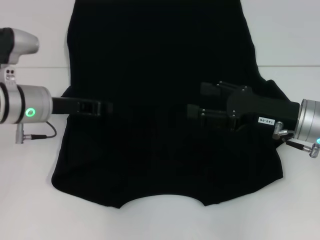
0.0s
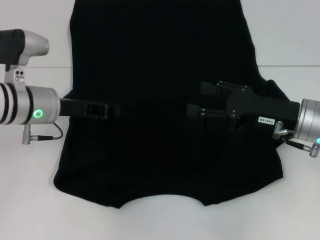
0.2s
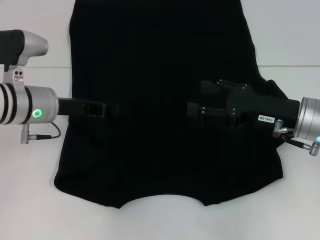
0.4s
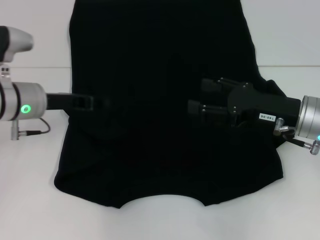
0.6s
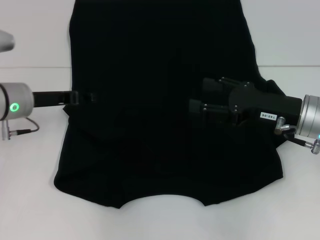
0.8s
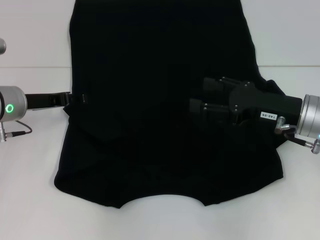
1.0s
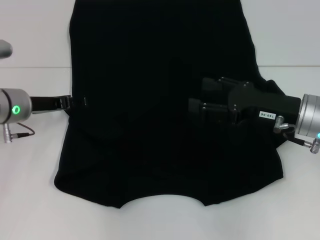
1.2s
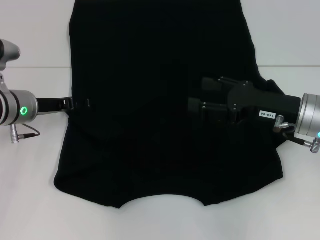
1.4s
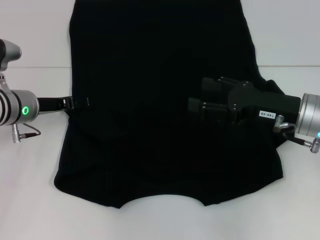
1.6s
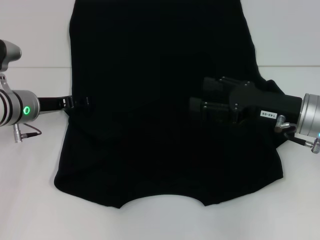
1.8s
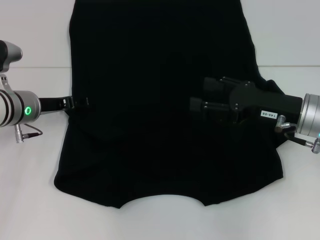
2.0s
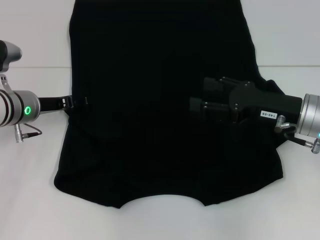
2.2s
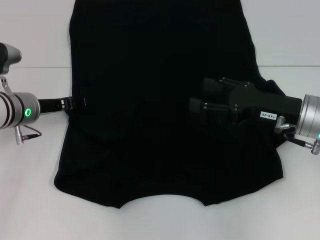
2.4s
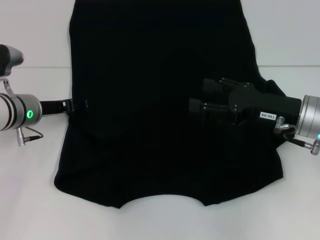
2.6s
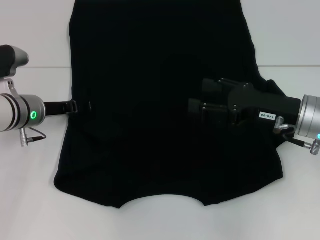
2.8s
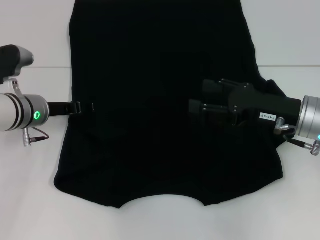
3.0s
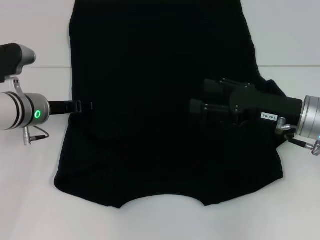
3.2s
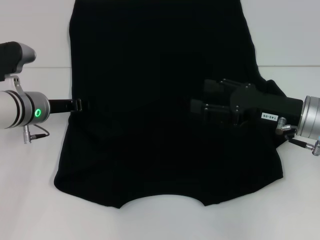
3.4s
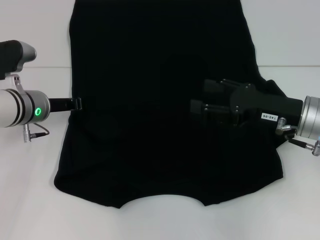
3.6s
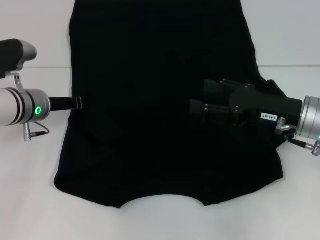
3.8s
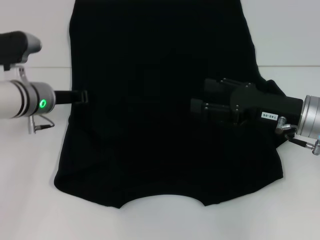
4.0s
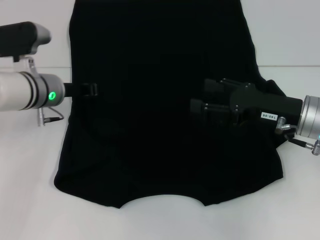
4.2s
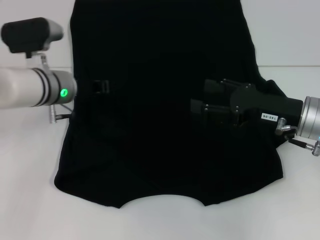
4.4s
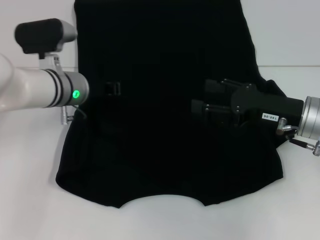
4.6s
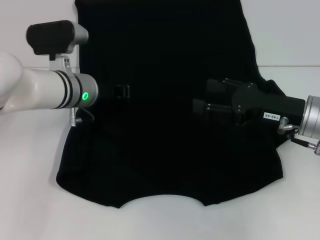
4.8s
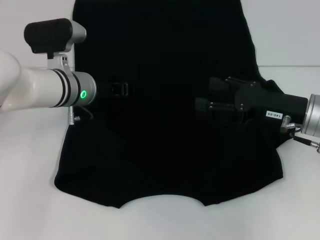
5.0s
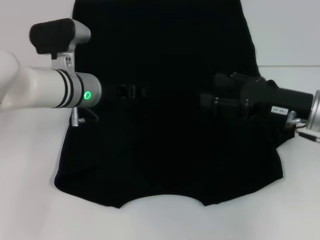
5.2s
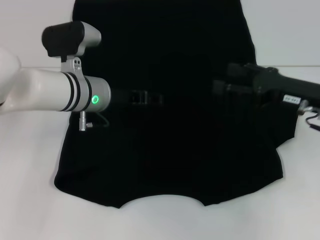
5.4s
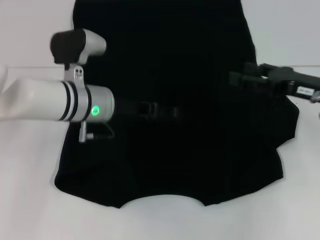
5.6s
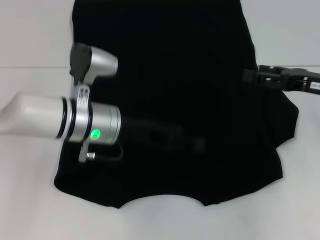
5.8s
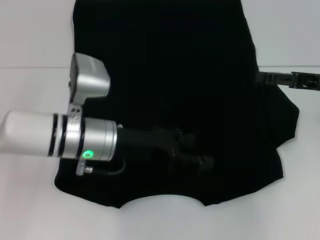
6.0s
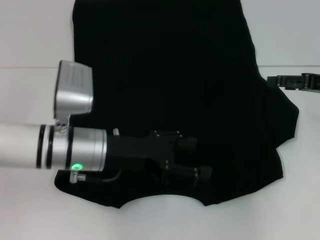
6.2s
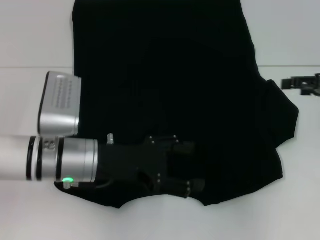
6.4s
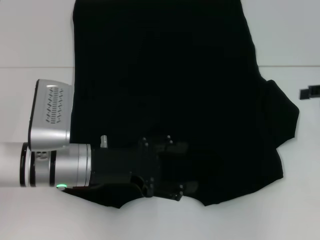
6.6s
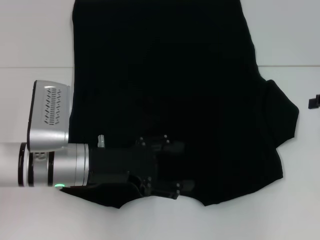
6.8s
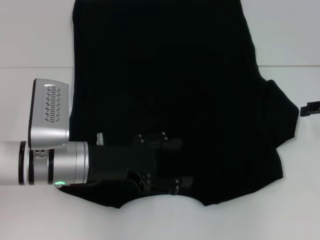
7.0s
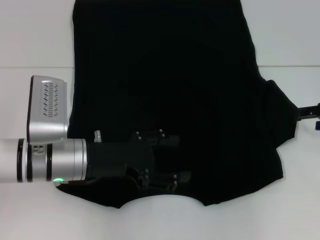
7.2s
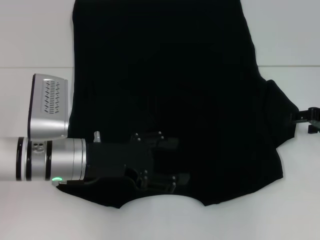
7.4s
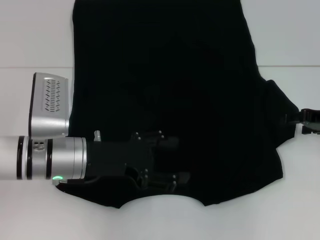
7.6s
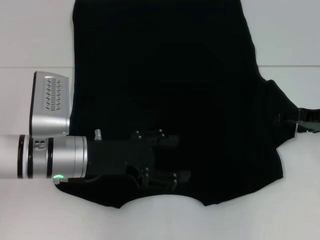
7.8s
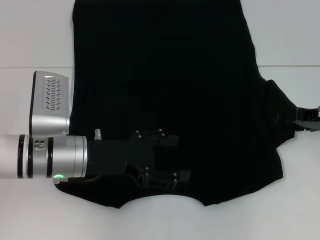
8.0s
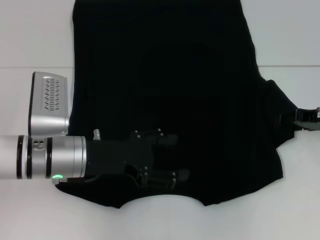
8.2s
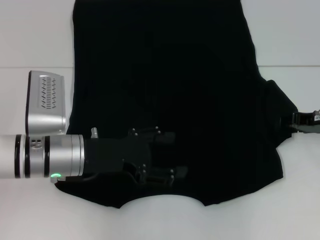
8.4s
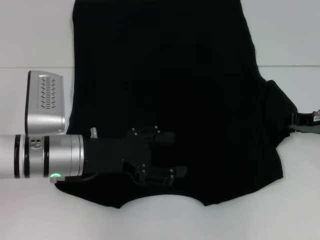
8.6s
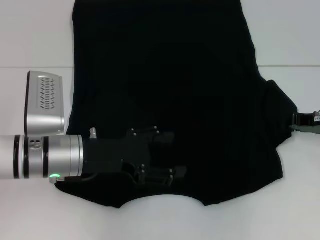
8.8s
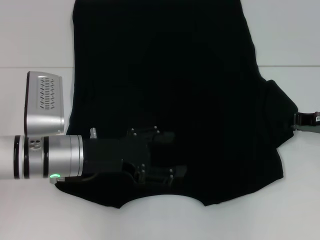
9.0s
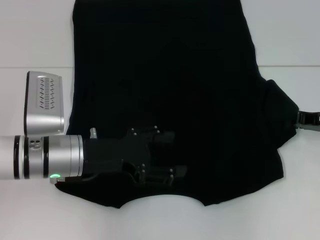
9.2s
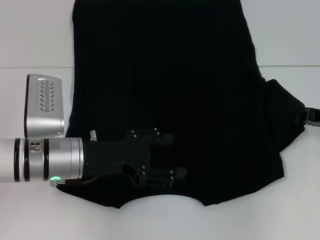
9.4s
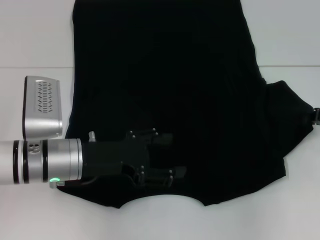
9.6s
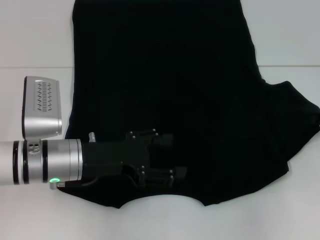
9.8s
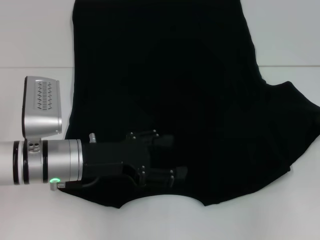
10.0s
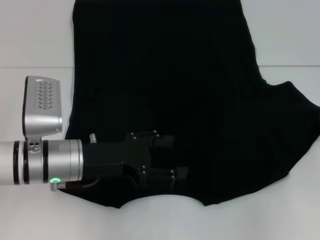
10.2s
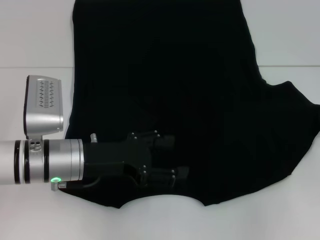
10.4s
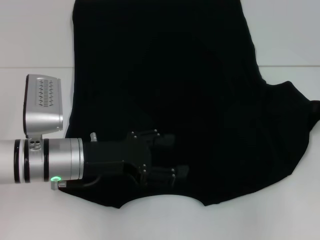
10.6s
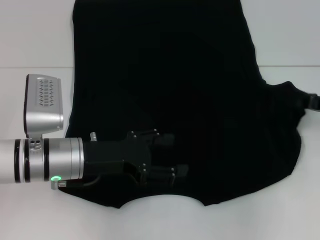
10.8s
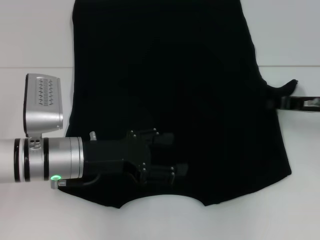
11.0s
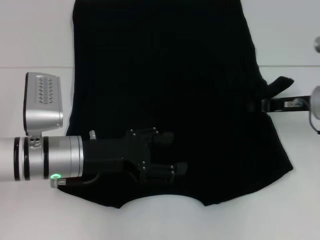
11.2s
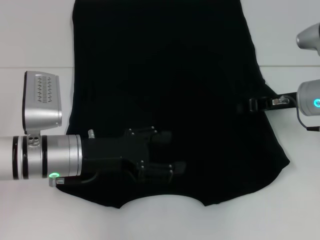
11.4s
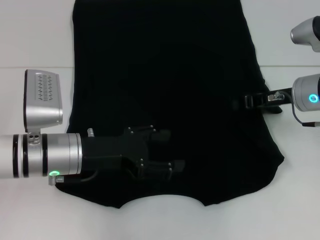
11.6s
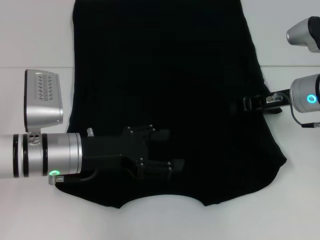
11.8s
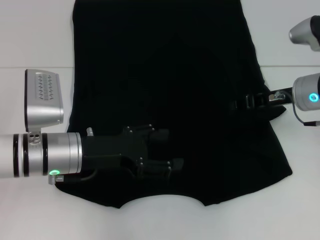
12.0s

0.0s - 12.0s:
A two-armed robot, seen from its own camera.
0.0s - 1.6s: The left gripper opens its fingers.
1.6s - 3.0s: The grippers move only a little.
3.0s - 4.4s: The left gripper changes place by about 5 cm, and closes.
4.4s - 6.0s: The right gripper heads to the right, covering approximately 10 cm; the left gripper is displaced backward and to the right by roughly 10 cm, and opens.
7.6s - 9.0s: The right gripper closes up.
9.0s - 10.4s: The right gripper shifts roughly 5 cm to the right.
10.4s - 12.0s: The right gripper travels to the left by some 15 cm.

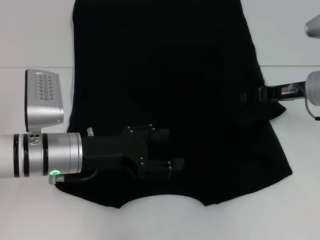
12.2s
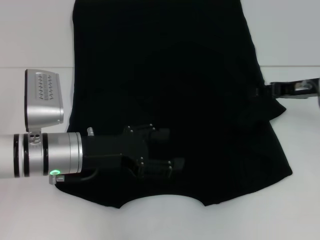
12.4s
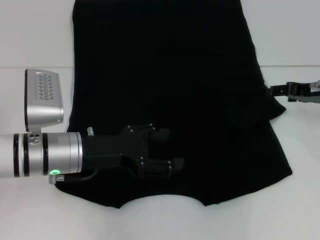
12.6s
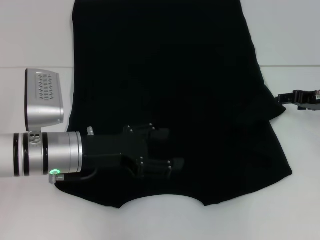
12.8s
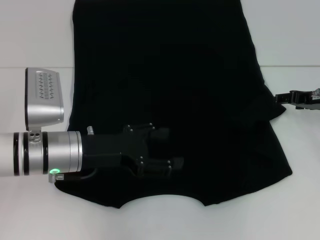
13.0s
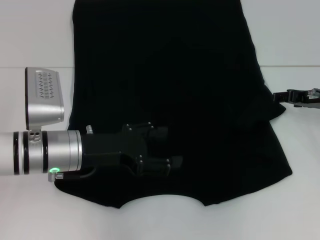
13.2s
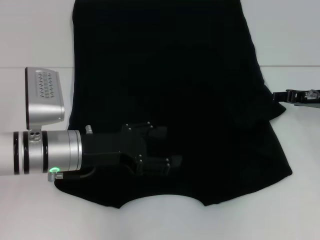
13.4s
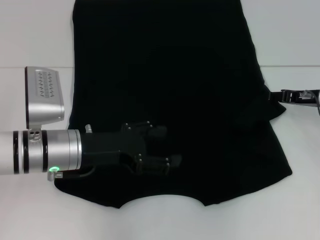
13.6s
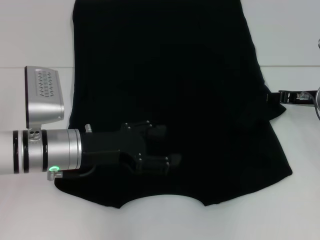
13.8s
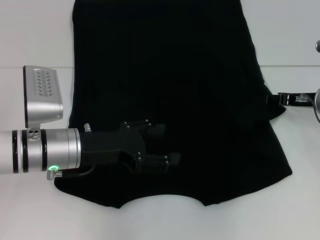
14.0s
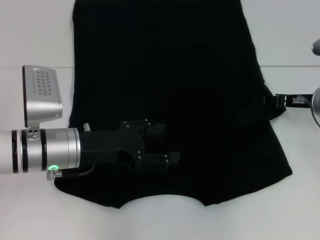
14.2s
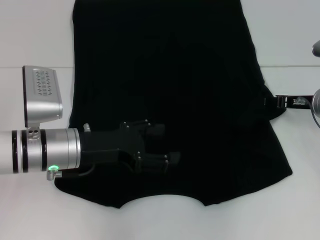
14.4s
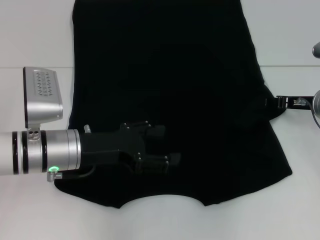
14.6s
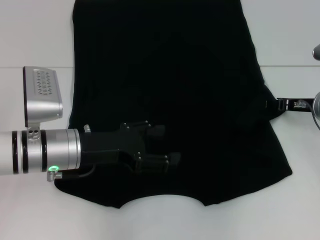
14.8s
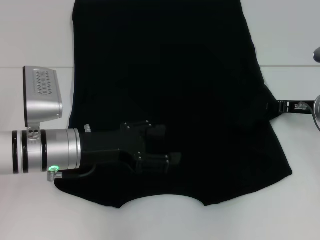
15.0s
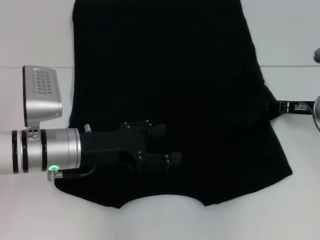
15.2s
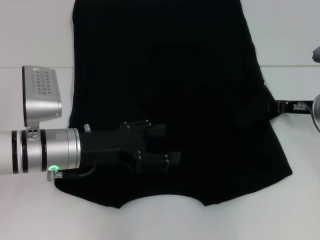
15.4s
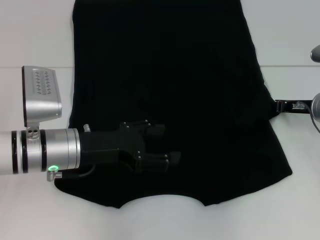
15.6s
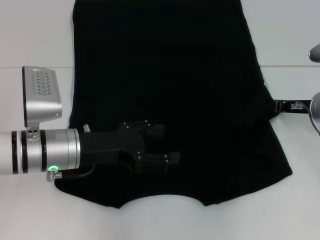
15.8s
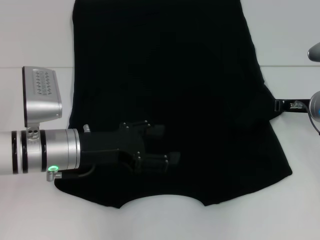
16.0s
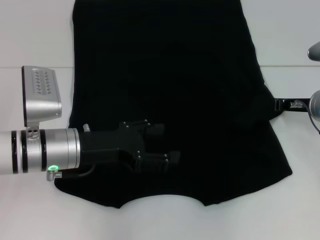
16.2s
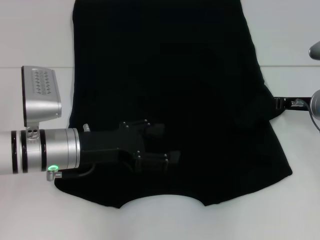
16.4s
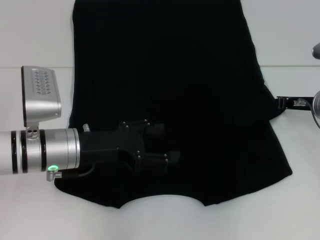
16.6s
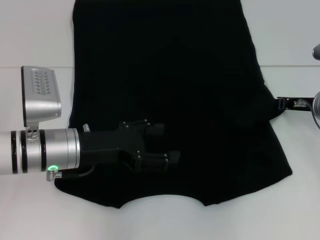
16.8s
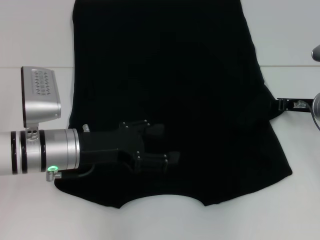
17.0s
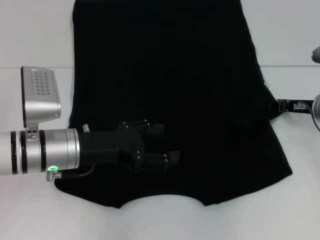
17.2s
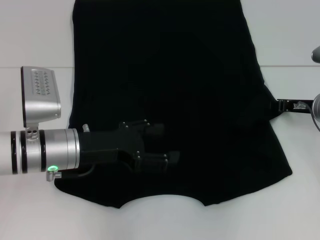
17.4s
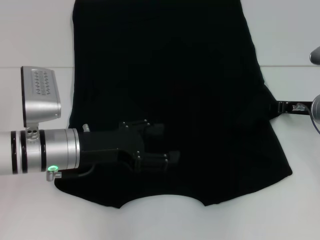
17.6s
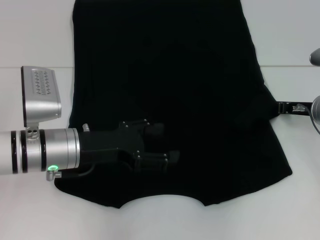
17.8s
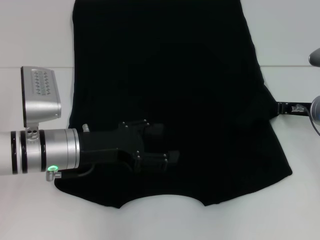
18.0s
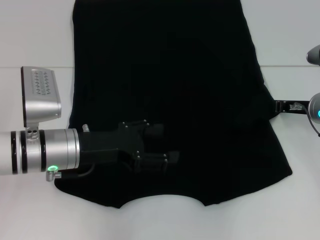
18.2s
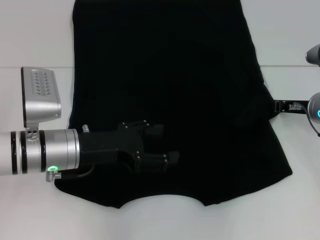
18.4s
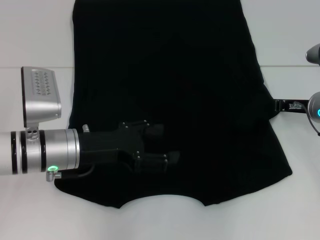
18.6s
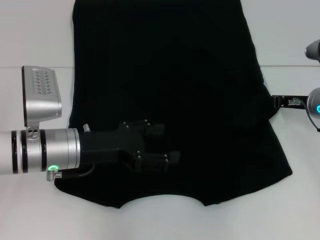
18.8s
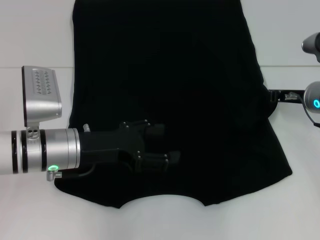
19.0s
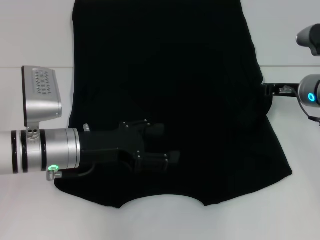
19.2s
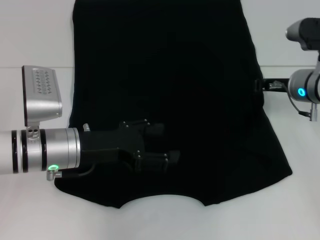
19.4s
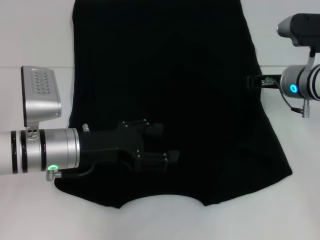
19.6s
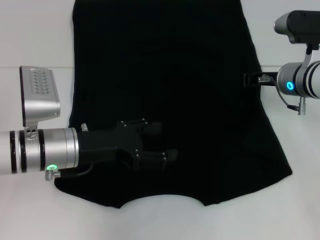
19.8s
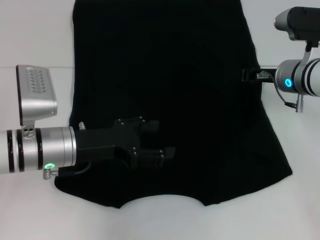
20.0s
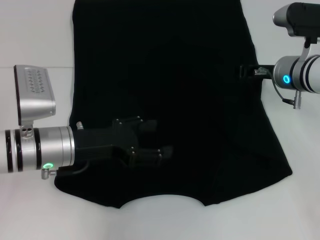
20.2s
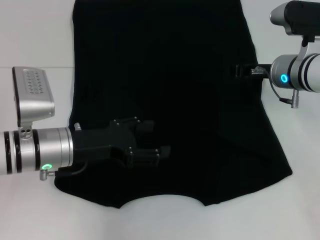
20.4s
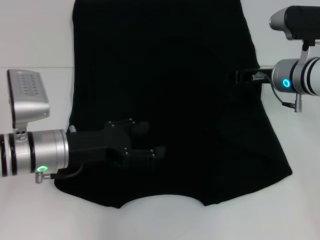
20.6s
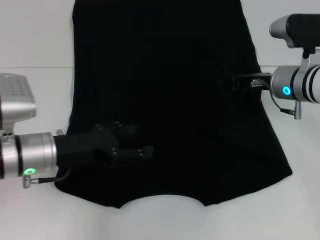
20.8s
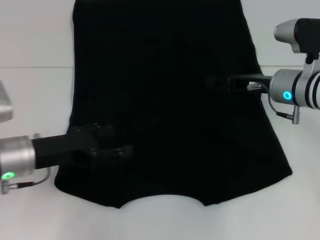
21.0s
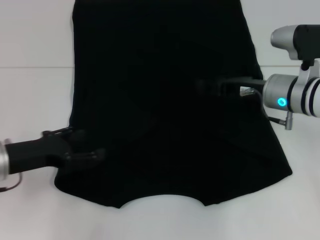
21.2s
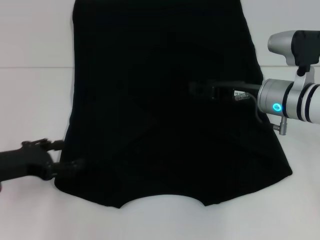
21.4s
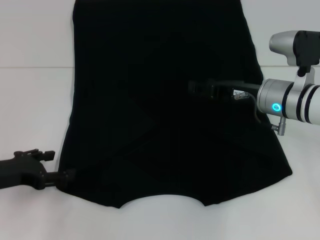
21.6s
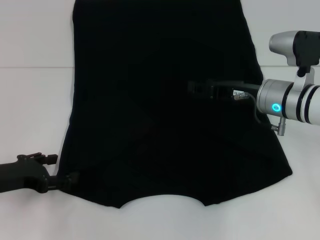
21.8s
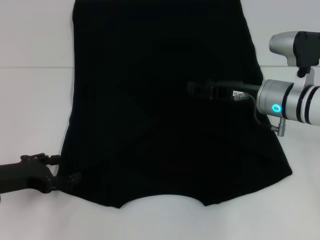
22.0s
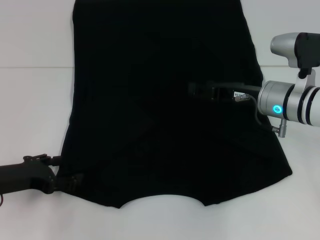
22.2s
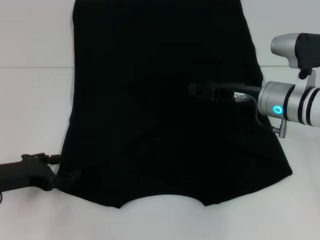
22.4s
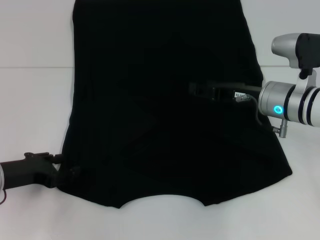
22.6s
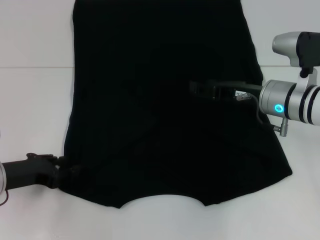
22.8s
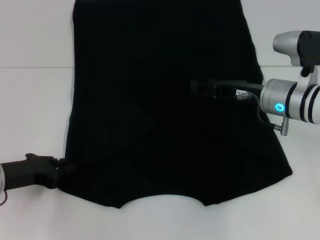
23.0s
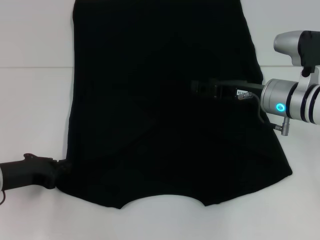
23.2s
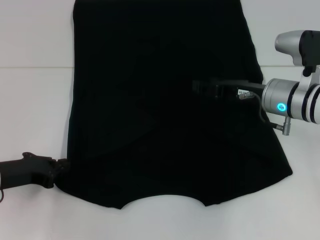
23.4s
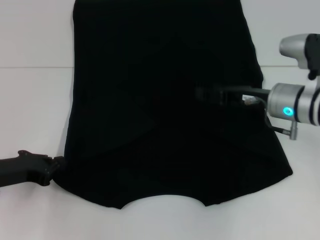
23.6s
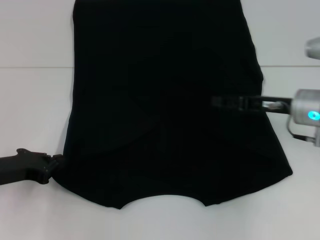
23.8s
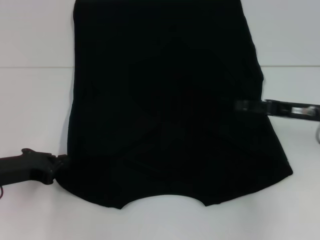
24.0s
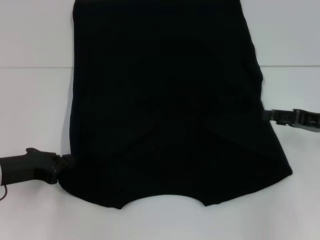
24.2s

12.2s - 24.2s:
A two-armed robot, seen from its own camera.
Step, 12.2s - 20.6s: Fold the bottom right sleeve with your right hand.
Step, 20.8s - 23.6s: Grab the bottom left corner with your left hand.
12.2s - 13.8s: The right gripper opens its fingers.
13.8s - 15.2s: There are only small adjustments of the grippers.
15.2s - 16.6s: The right gripper closes up.
16.6s - 18.2s: The right gripper opens and closes again.
18.2s - 19.8s: The right gripper travels to the left by approximately 5 cm.
19.8s - 21.2s: The left gripper shifts some 10 cm to the left. Meanwhile the right gripper opens.
21.2s - 22.6s: The grippers stay close to where they were, moving slightly.
22.6s - 24.2s: The left gripper closes its fingers. The right gripper shifts some 15 cm to the right.
